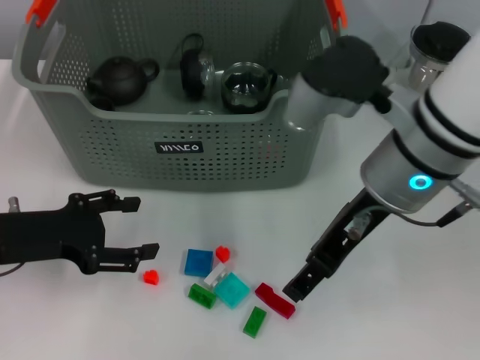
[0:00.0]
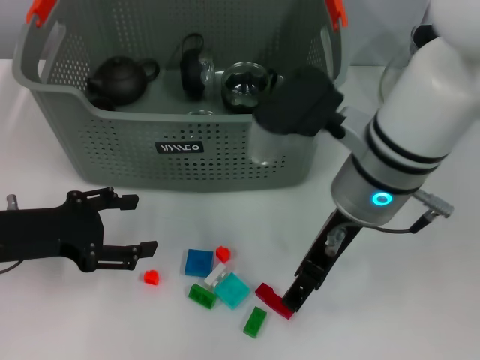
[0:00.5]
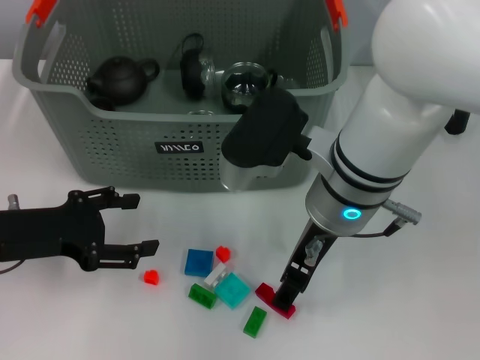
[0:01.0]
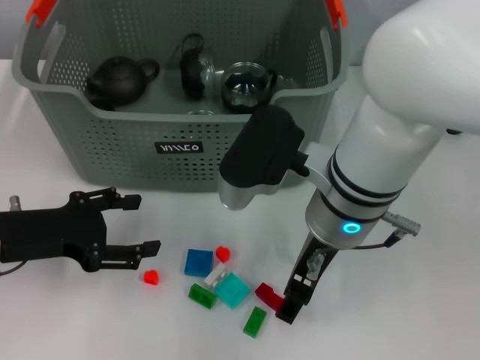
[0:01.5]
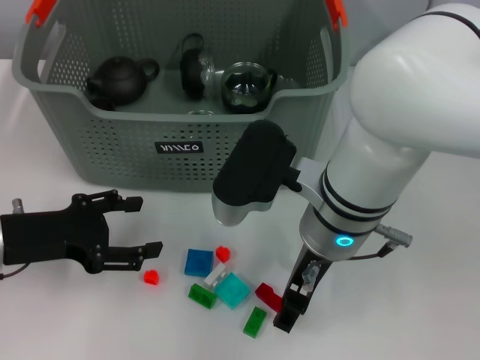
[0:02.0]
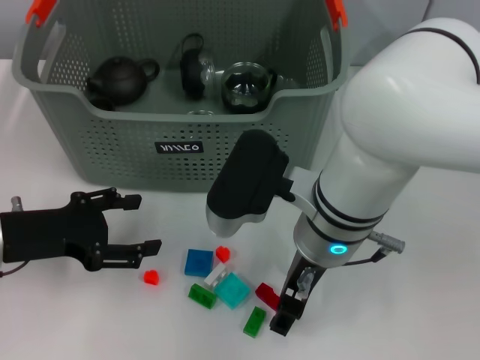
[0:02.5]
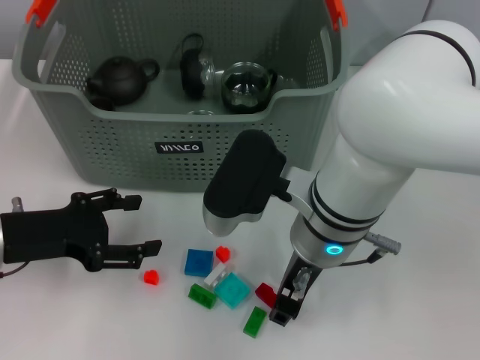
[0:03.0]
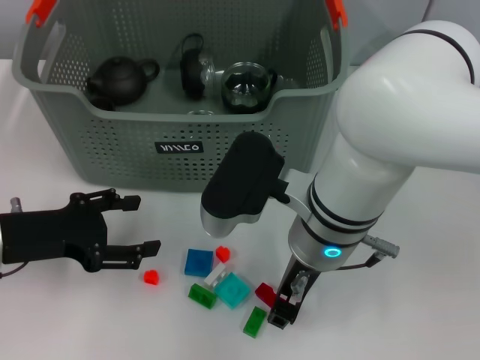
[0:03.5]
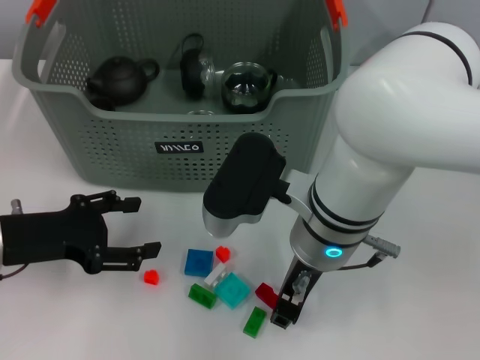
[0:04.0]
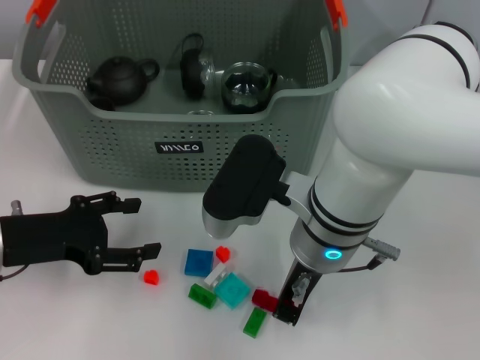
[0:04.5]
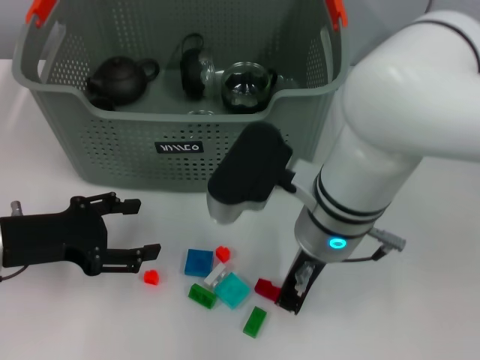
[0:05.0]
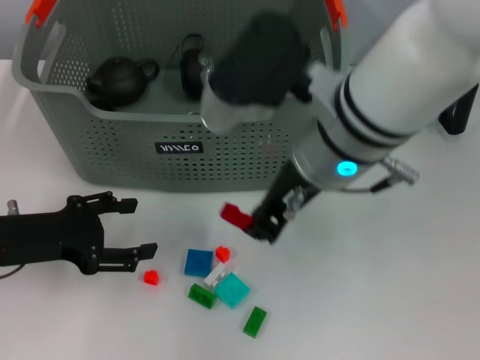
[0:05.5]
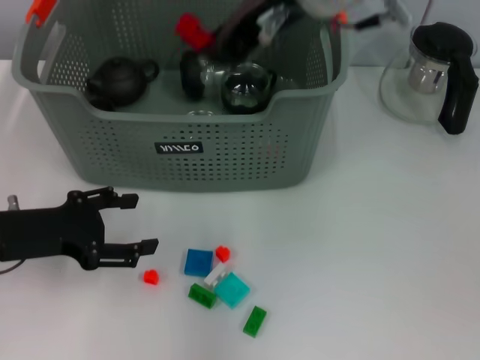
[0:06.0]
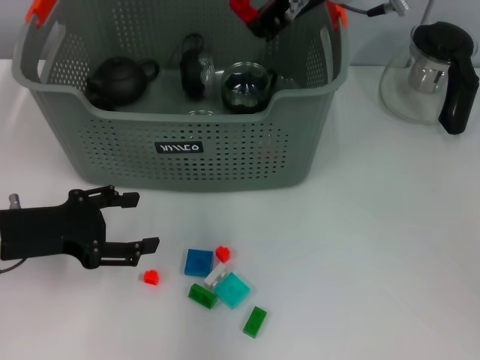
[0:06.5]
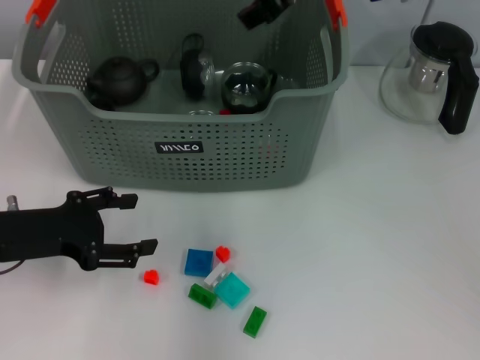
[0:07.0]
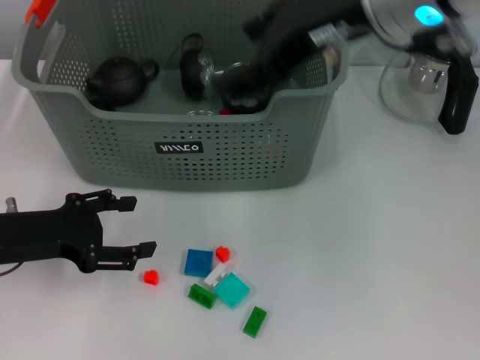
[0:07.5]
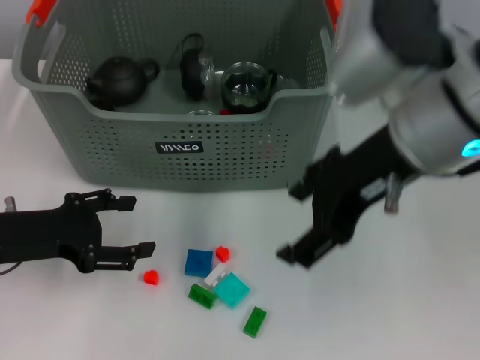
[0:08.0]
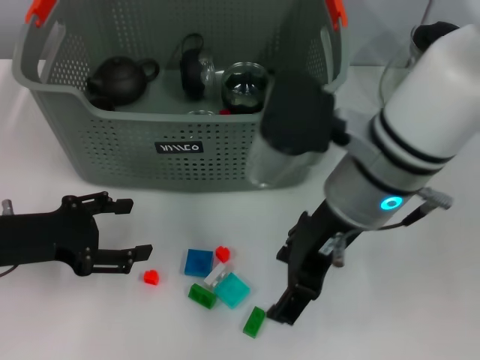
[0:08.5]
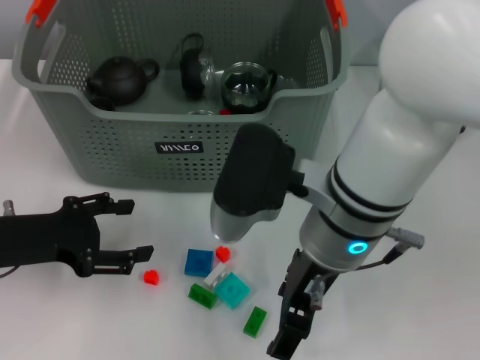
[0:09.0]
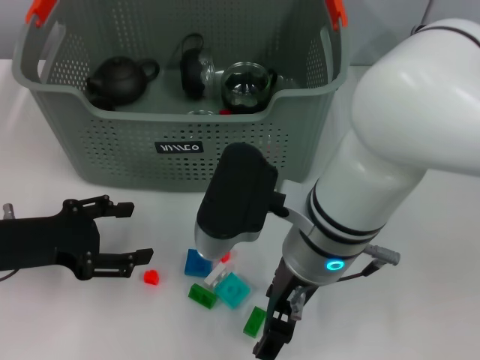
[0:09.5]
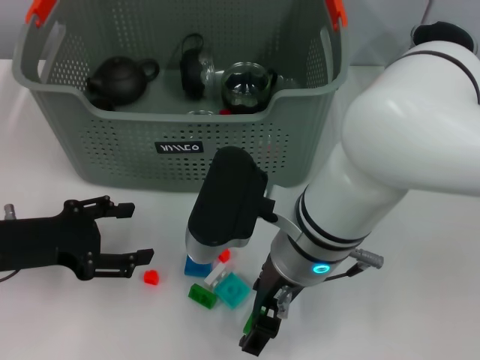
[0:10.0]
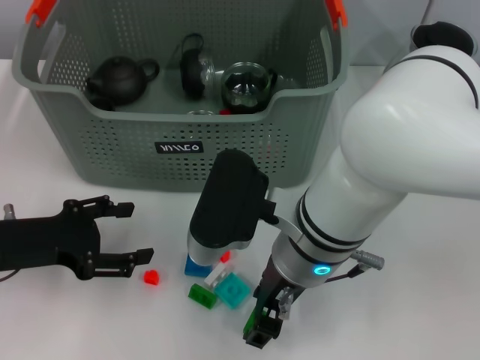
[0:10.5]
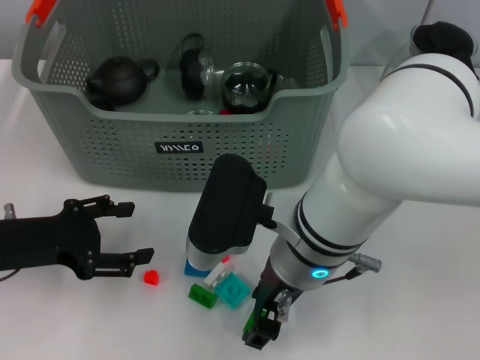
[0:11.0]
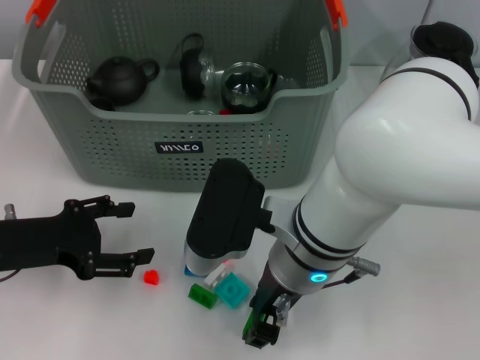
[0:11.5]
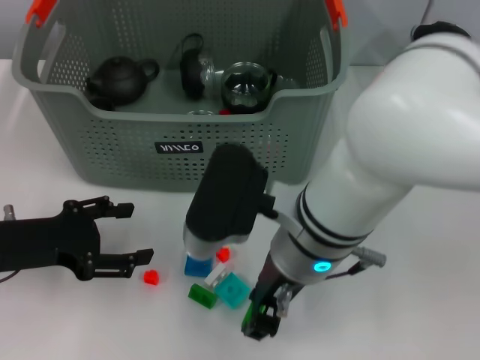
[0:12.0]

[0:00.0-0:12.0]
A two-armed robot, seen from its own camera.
Task of the whole recording: pick up the teacup on the table and place it into the storage bin, pick up the block on the table and place it into the storage bin.
Step, 0.0 to 4.5 s: Grasp the red block with right gripper.
Step, 5.0 to 6.5 s: Place the red block in the storage box with right gripper.
Step, 7.0 to 11.5 s: Grasp the green block with right gripper.
0.0 to 2.0 s: The right gripper moves downward and to the left, approximately 10 cm.
2.0 to 4.0 s: The right gripper closes.
4.0 to 6.0 s: The right gripper moves upward, some 20 cm.
6.0 to 8.0 s: The right gripper moves to the right, downward and backward, about 10 cm, and opens its fingers.
8.0 to 10.0 s: The right gripper goes roughly 15 cm downward and to the left.
10.0 to 12.0 s: The right gripper closes.

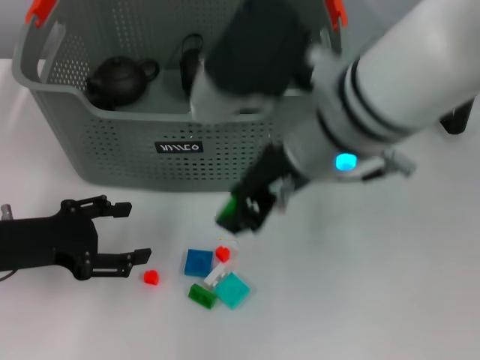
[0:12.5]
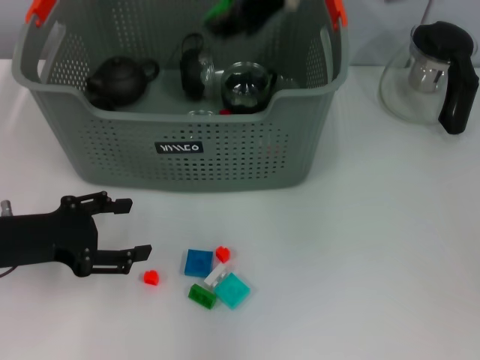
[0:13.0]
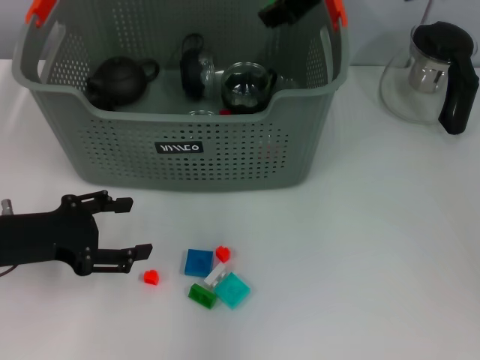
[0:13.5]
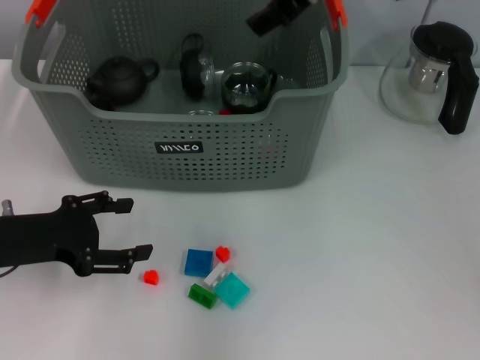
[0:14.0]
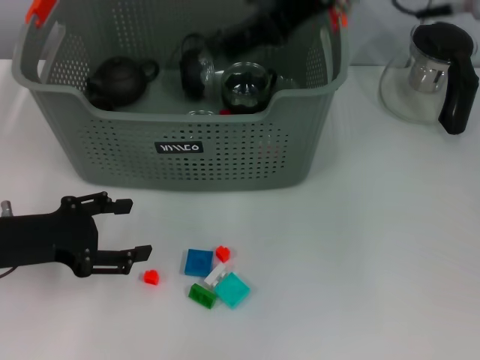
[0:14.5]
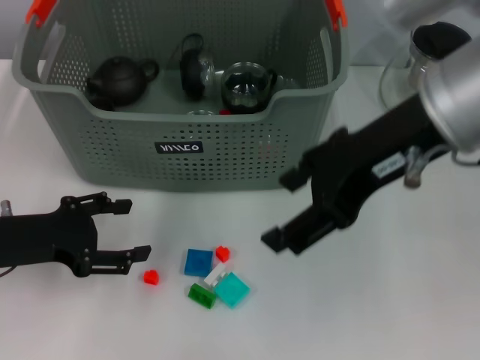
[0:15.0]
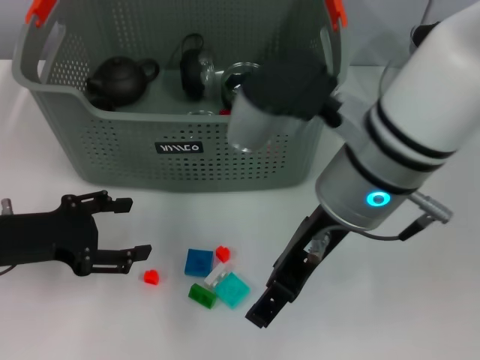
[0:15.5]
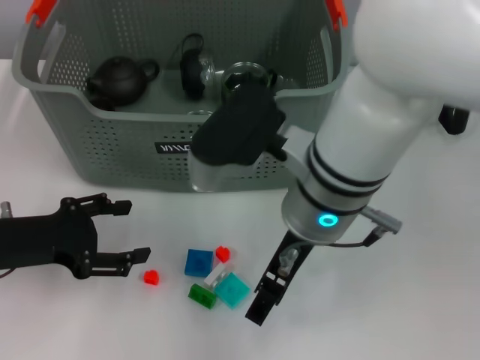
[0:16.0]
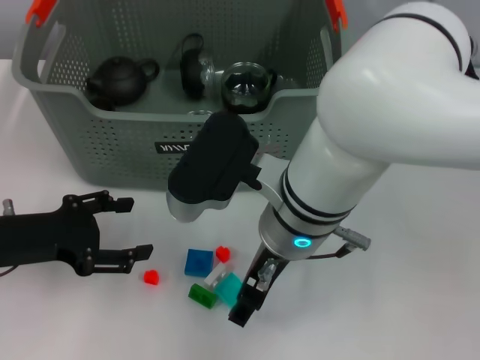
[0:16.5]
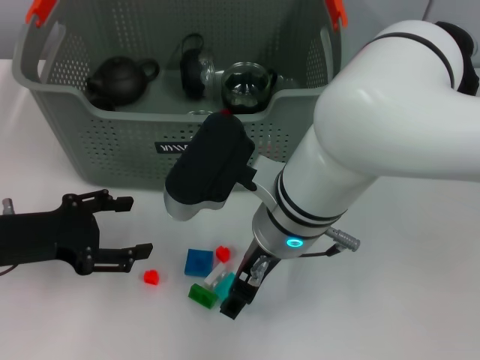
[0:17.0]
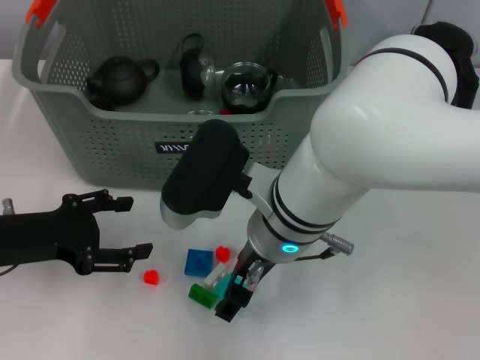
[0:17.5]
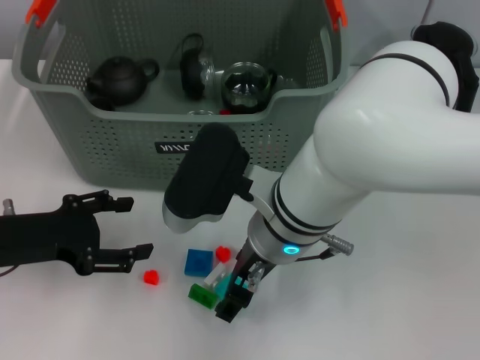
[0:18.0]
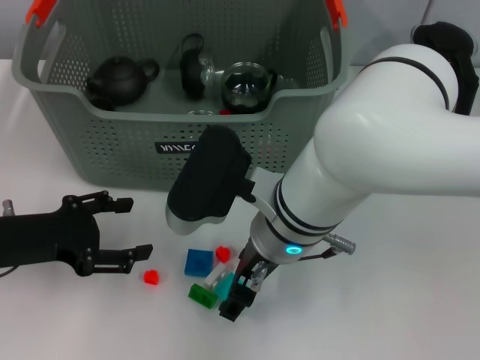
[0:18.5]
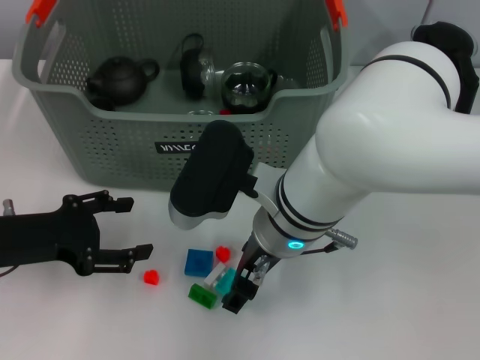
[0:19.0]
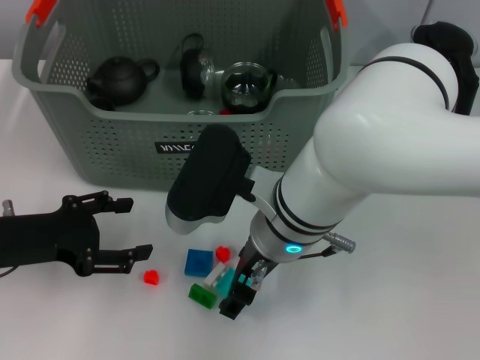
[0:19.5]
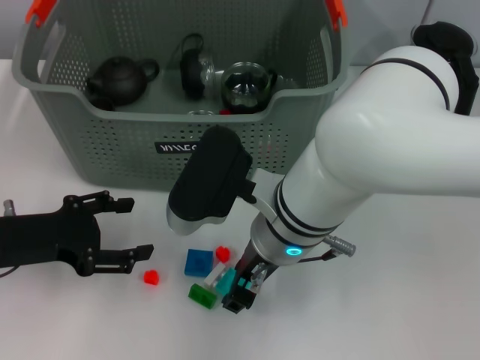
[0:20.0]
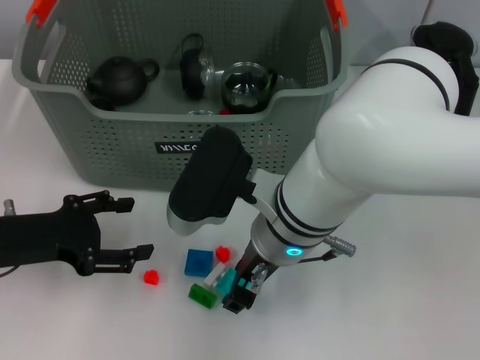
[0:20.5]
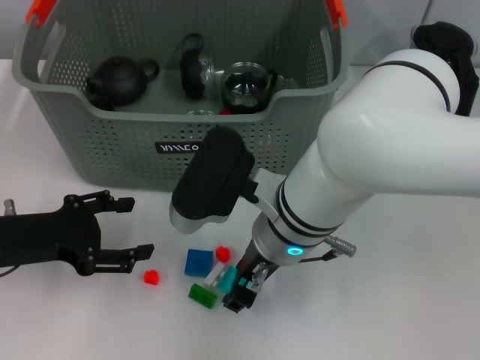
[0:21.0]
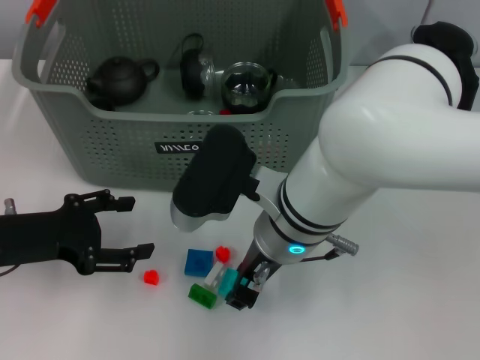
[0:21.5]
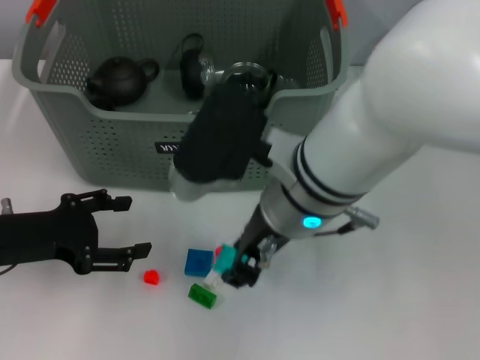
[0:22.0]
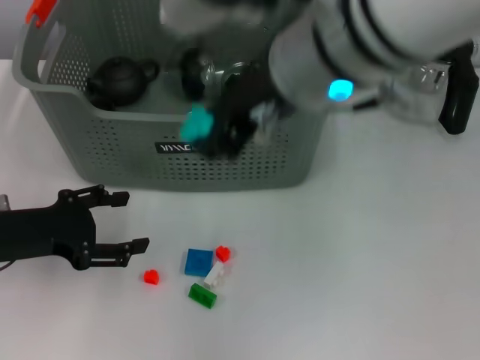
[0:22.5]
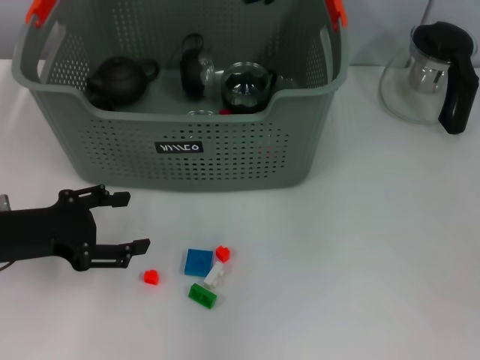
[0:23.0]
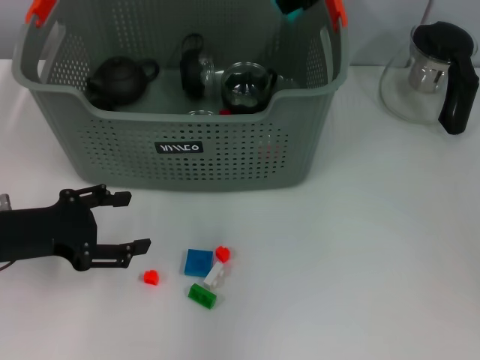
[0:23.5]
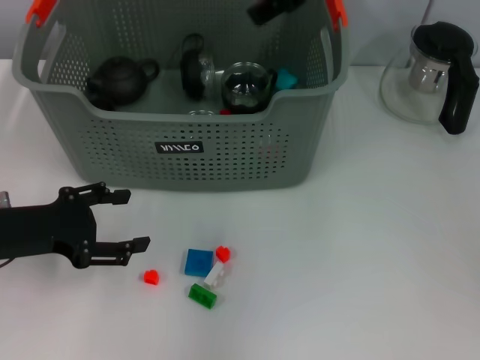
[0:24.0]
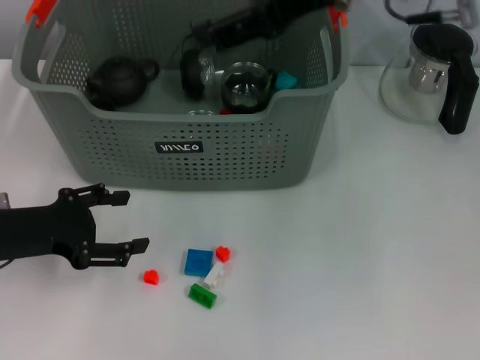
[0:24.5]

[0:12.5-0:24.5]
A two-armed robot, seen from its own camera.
Task of the whole recording: pick up the teacup on the table and place it into the storage bin, pick up the block on the table and place it into the storage bin.
Step, 14.0 to 21.0 s: Grasp the light blue block with right gripper.
Step, 21.5 to 23.5 s: Place the light blue block in the storage box with right gripper.
12.5 to 14.5 s: The right gripper travels upward, to the right and forward by some 10 cm, and opens.
14.5 to 16.5 s: The right gripper moves downward and to the left, some 20 cm.
16.5 to 18.5 s: There are only small adjustments of the grippers.
18.5 to 20.5 s: The right gripper closes its fingers.
20.5 to 22.5 s: The right gripper travels upward by some 15 cm.
22.5 to 24.5 s: The right gripper moves to the right and forward, roughly 10 cm, and opens up.

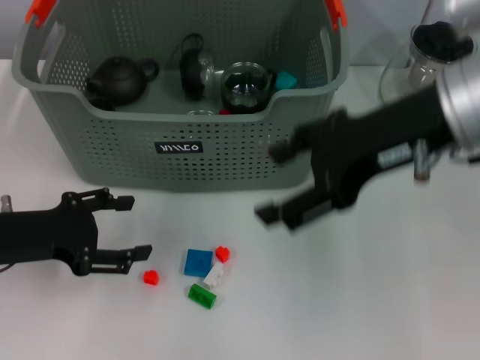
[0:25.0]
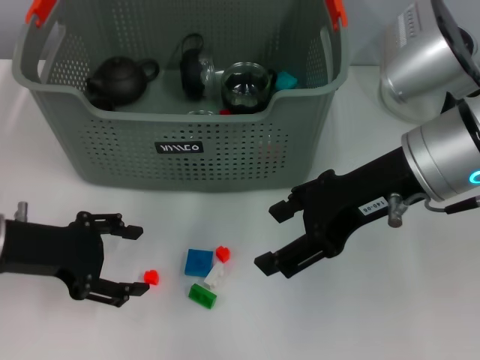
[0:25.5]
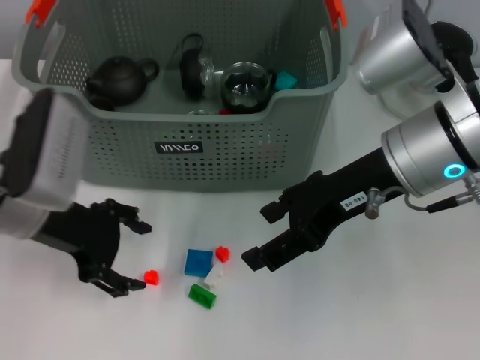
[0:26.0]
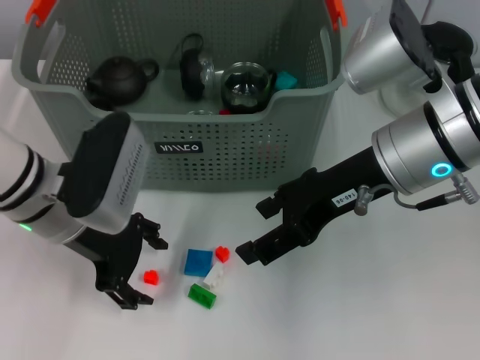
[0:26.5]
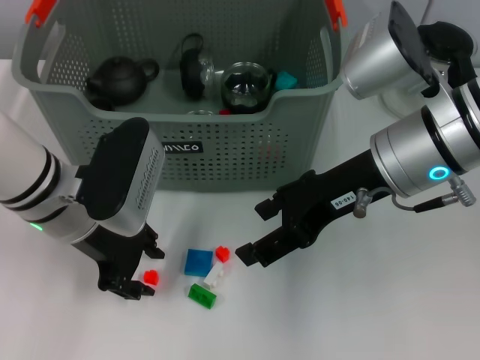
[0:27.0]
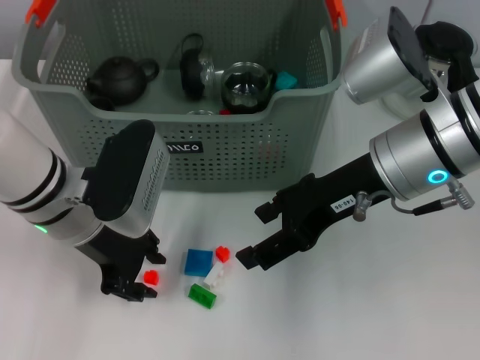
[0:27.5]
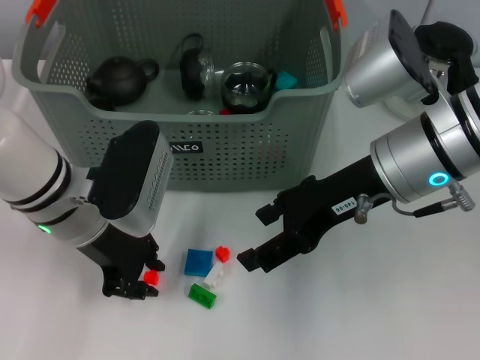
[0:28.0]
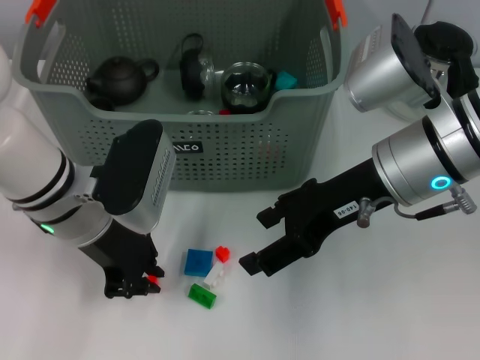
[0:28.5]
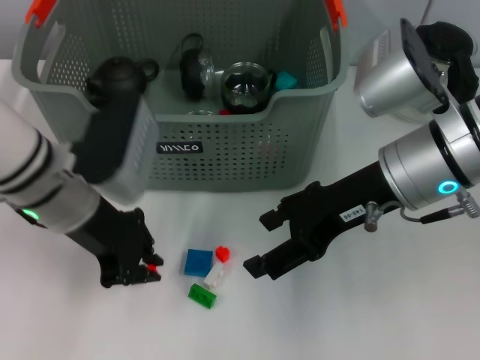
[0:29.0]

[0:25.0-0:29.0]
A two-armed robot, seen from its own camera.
Task of the whole recording: pick up the teacup on the table and place it into the storage bin, pick up the block on the table and place it into the storage bin.
Step, 25.0 to 28.0 s: Grasp the orange block with left gripper.
25.0 to 27.0 s: The right gripper goes roughly 5 cm downward, while the left gripper moves to the right and forward, roughly 10 cm.
27.0 to 29.0 s: The left gripper closes.
